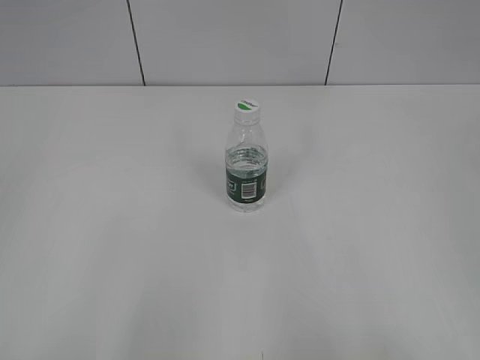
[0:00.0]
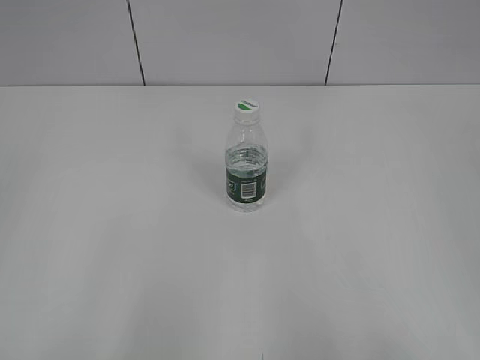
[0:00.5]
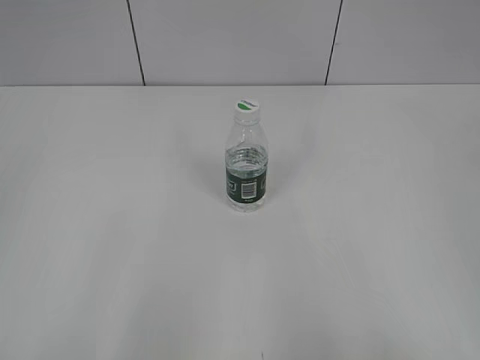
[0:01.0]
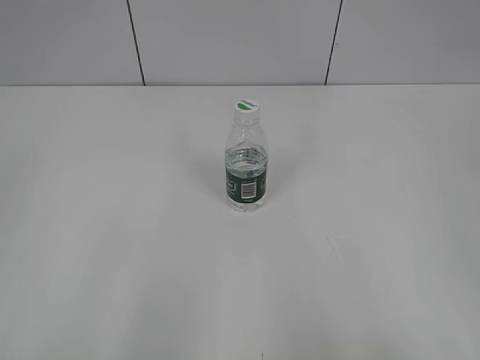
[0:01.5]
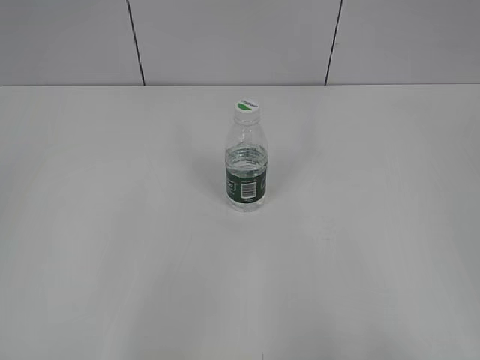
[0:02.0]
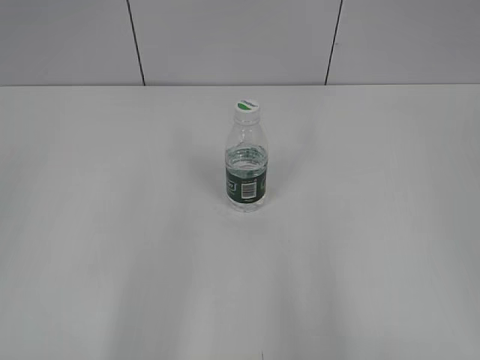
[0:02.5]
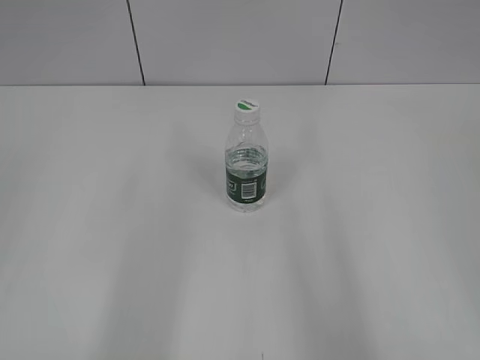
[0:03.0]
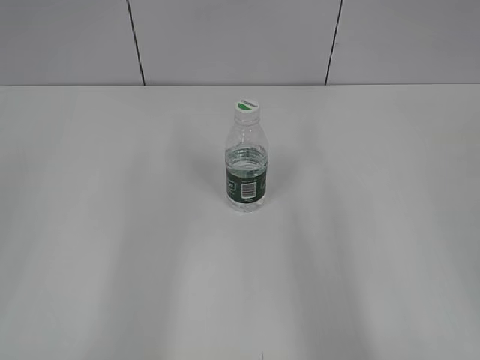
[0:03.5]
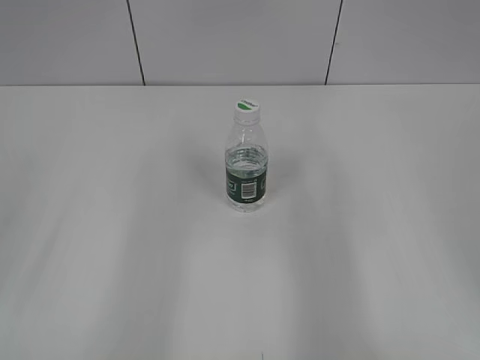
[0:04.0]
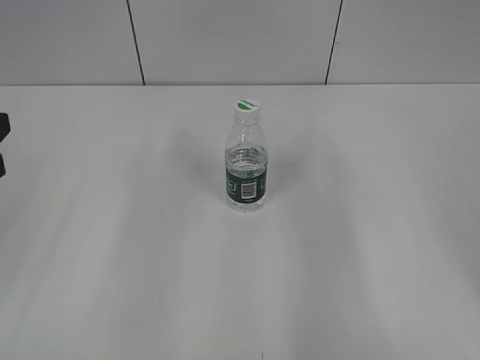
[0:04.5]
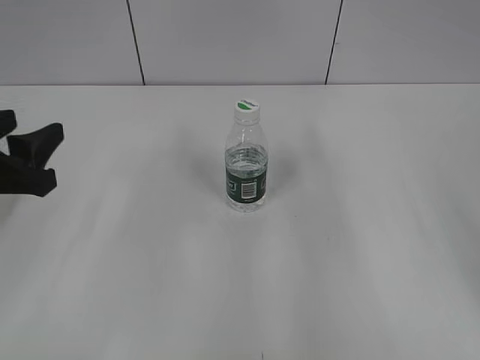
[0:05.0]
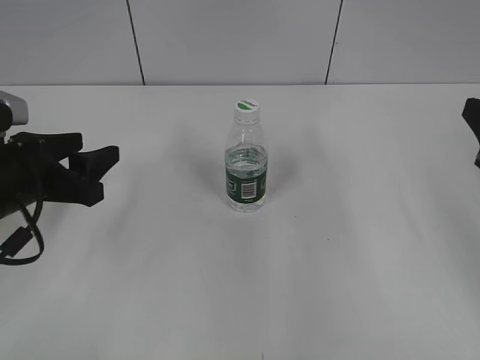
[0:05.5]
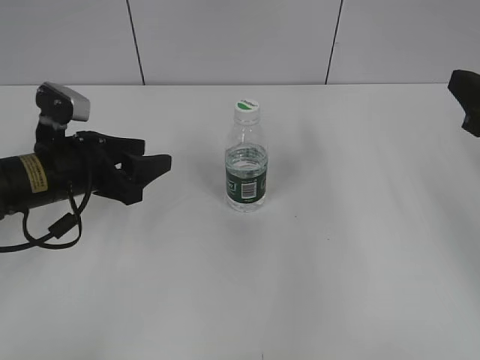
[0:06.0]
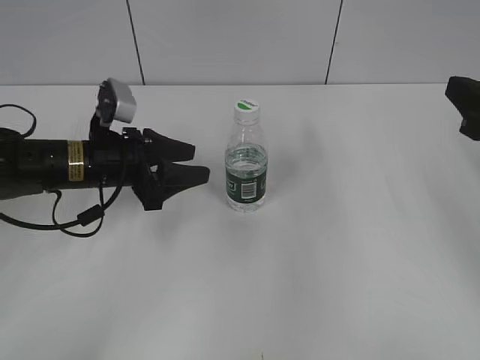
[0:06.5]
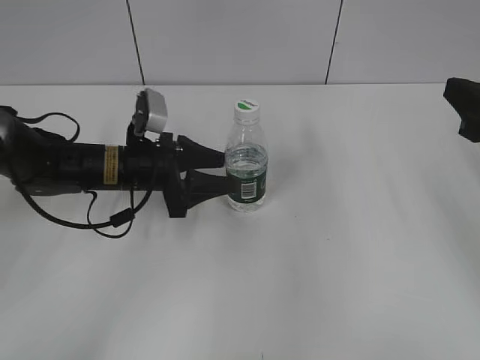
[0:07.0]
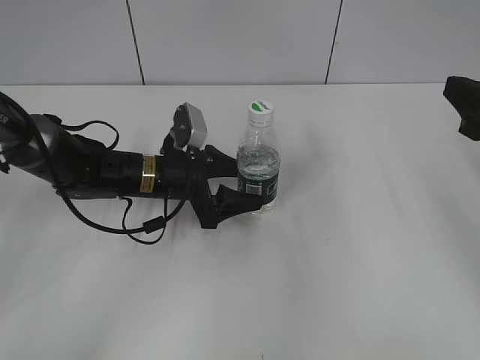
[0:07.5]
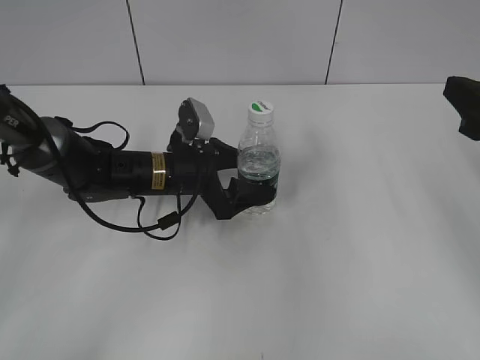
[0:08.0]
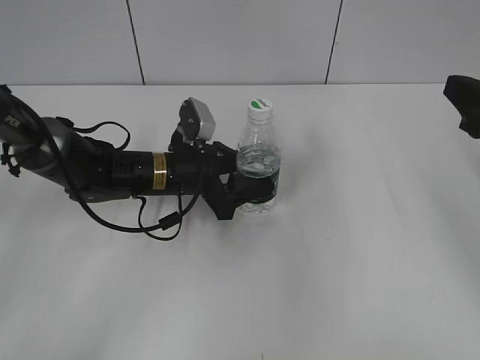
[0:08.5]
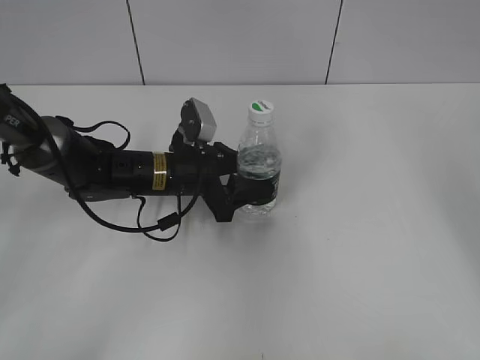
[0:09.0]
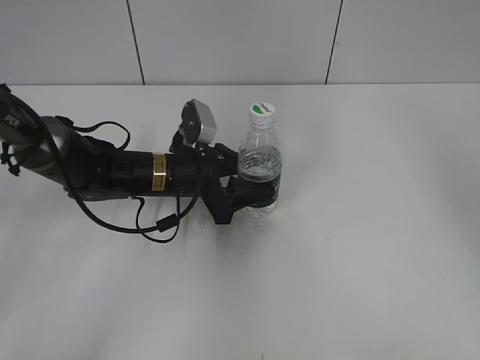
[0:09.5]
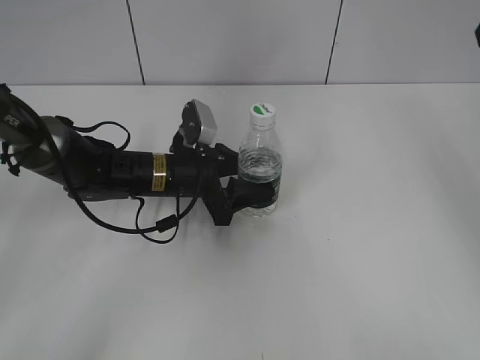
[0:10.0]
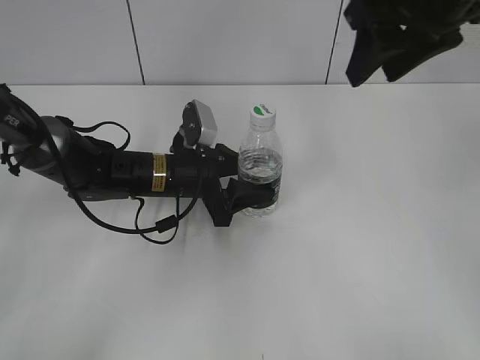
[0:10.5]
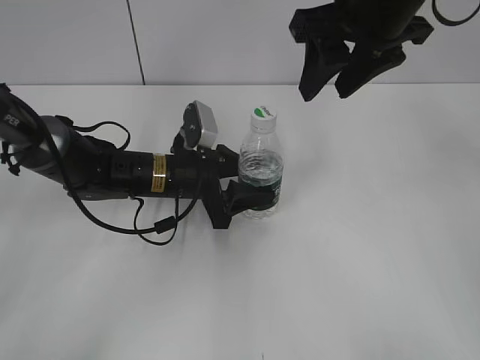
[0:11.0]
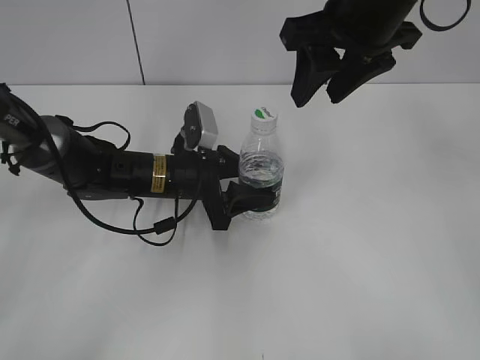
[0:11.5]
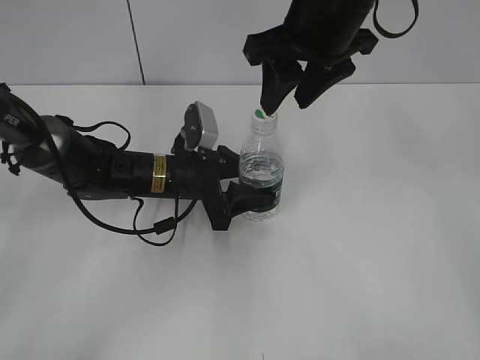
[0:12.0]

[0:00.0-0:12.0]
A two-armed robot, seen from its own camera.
Step, 0.0 to 9.5 s: Grasp the bottle and move it to the center of the table with the left gripper.
4.0 to 6.0 s: The right gripper goes some 10 cm forward. The left gripper heads forward, downward and to the right, covering roughly 20 cm.
6.0 to 8.0 s: The left gripper moves to the right, forward and downward, roughly 15 cm, and opens.
8.0 to 10.0 s: The left gripper closes up. The right gripper heads upward and forward, covering approximately 15 cm.
10.0 to 12.0 s: The right gripper shifts about 20 cm to the left.

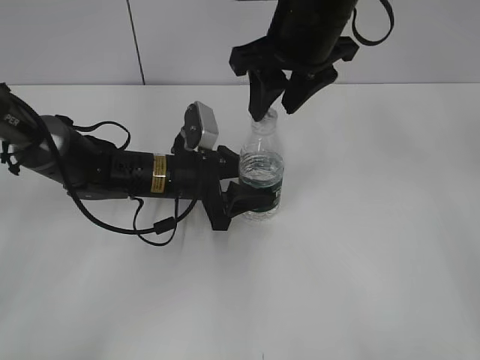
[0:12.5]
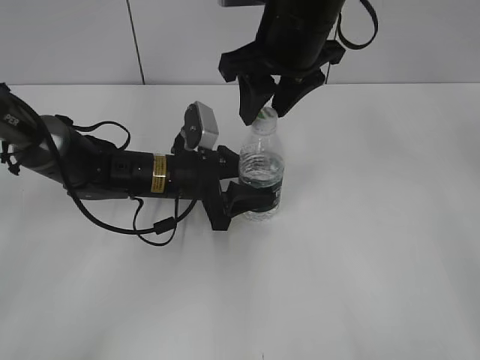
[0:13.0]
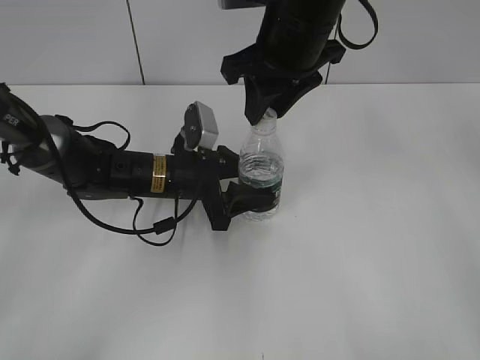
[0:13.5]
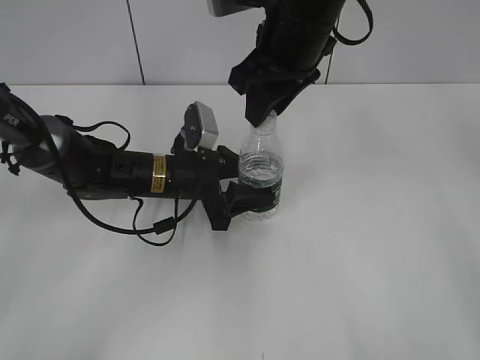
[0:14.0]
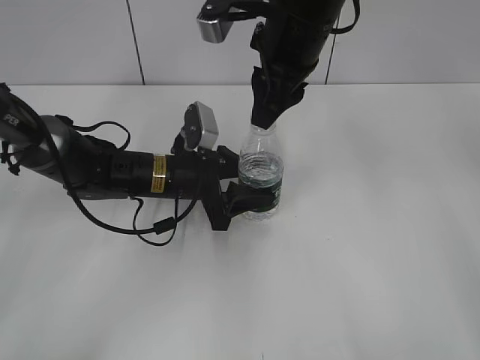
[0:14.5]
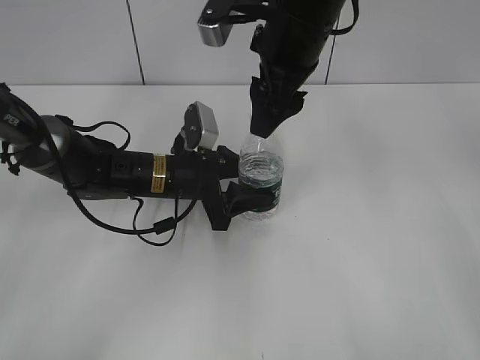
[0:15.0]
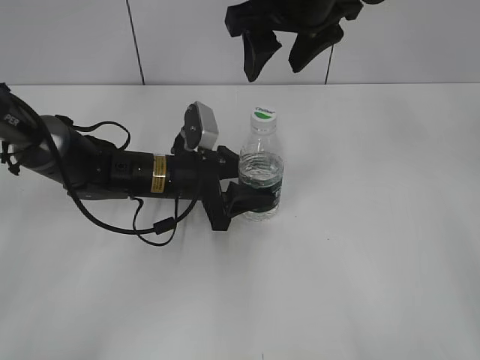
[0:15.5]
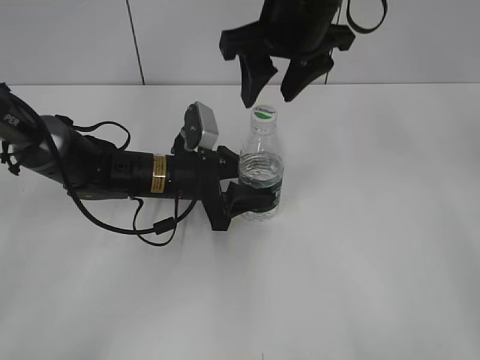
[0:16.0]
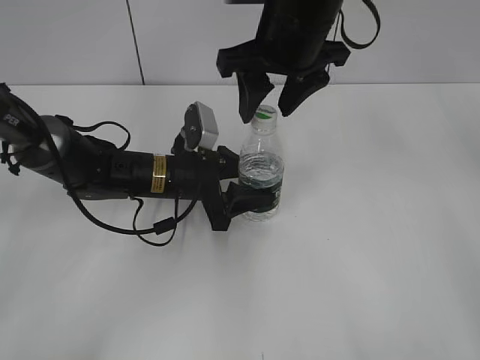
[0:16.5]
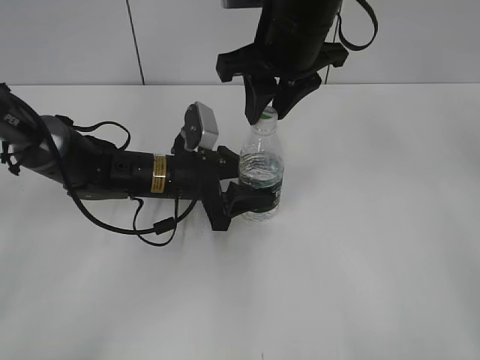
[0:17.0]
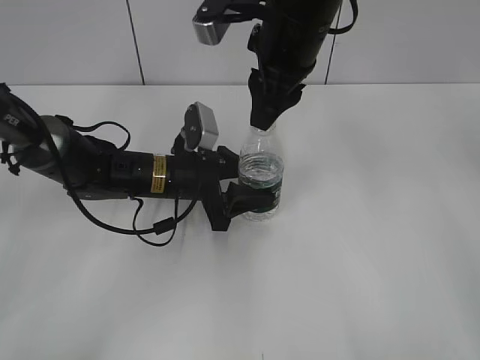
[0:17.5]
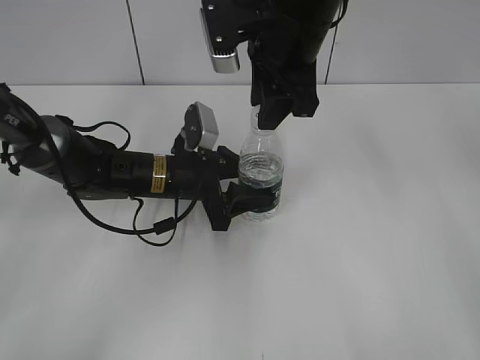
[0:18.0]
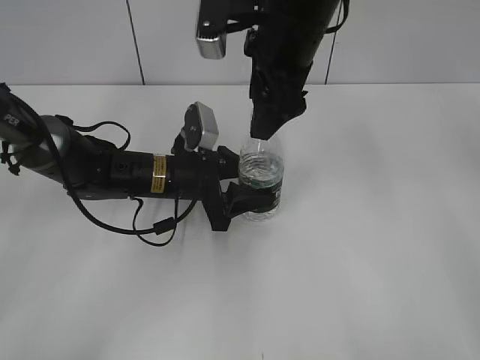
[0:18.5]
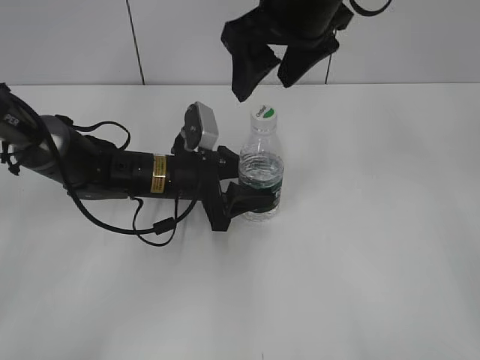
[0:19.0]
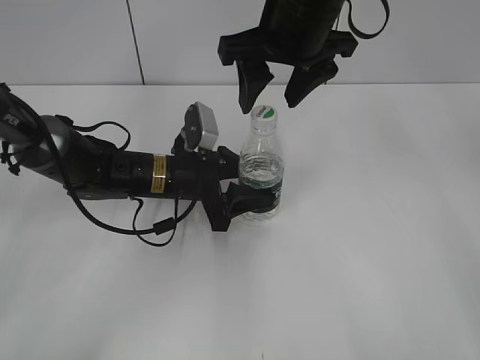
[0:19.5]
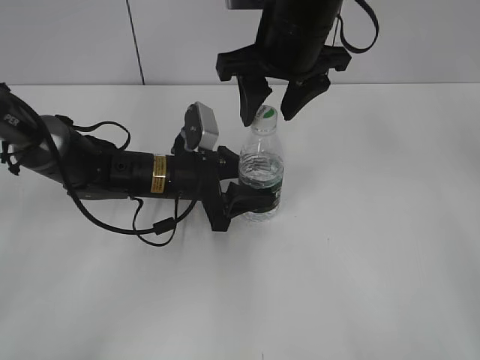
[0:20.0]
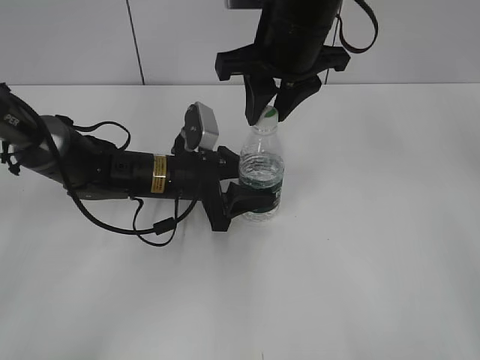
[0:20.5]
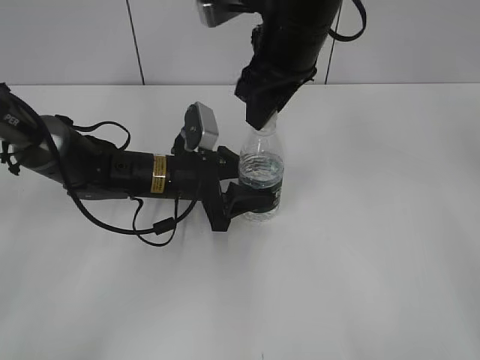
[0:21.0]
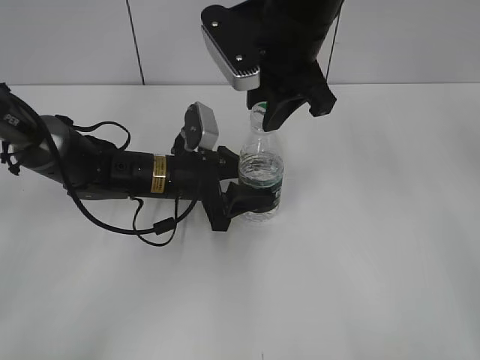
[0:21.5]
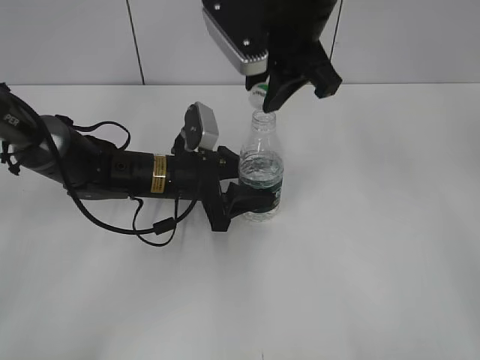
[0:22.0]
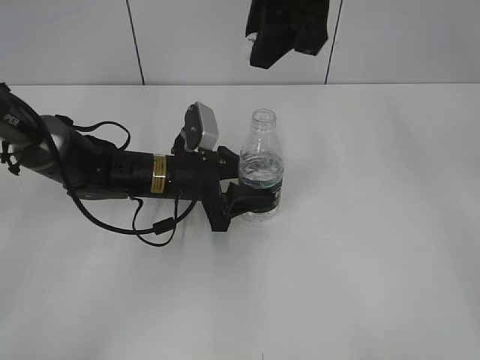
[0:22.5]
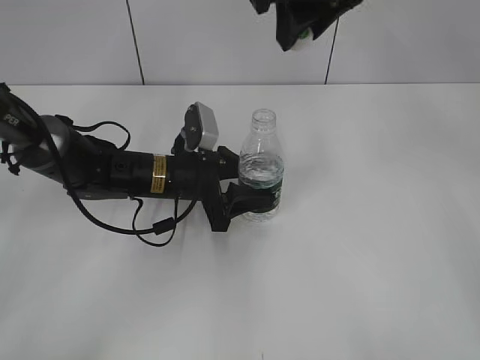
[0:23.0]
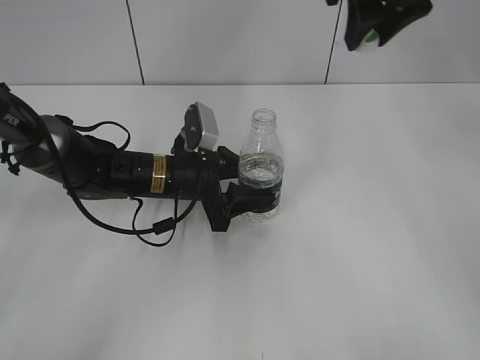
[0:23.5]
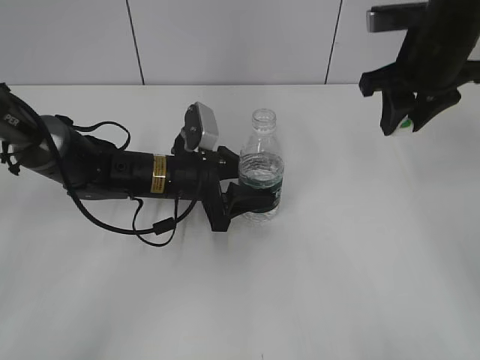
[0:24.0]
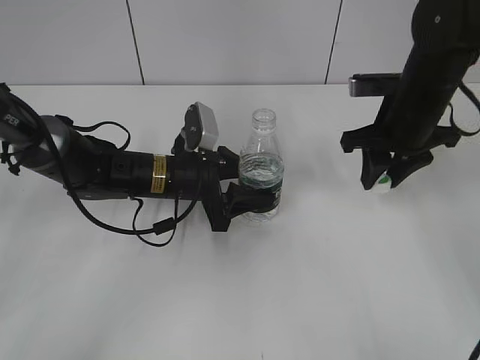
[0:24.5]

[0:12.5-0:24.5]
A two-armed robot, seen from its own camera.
Step, 12.5 to 22.0 s: Unscrew the bottle cap with the right gripper while holding the bottle with the left gripper.
12.5 to 14.5 s: The right gripper closes its fingers.
14.5 to 16.5 s: The right gripper opens its fingers.
16.5 to 18.5 s: The right gripper closes and opens again.
18.5 to 20.5 s: The right gripper closes.
20.5 to 22.5 s: The right gripper shifts some 10 cm upward.
22.5 to 24.5 s: The right gripper is displaced downward and to the right by approximately 25 cm.

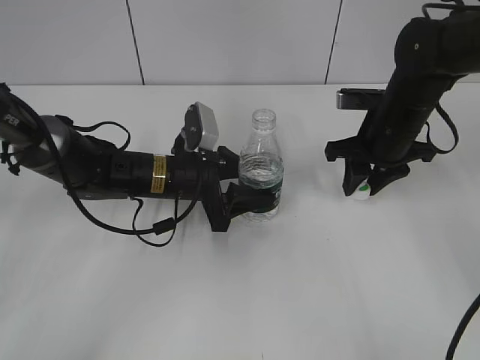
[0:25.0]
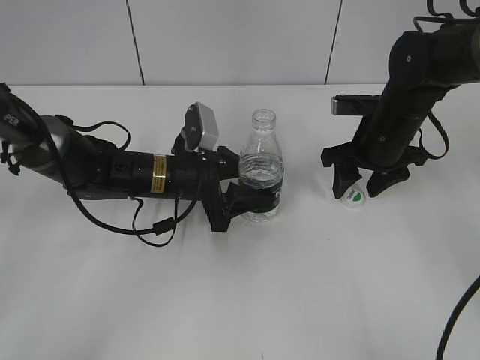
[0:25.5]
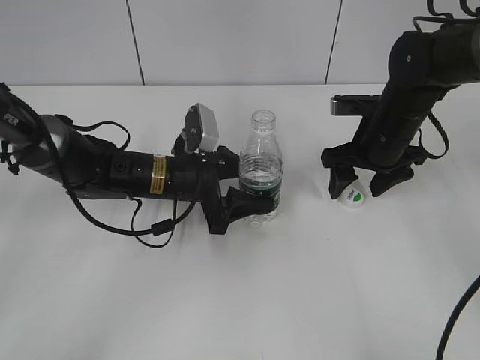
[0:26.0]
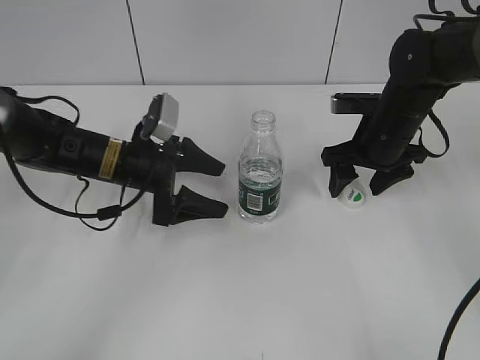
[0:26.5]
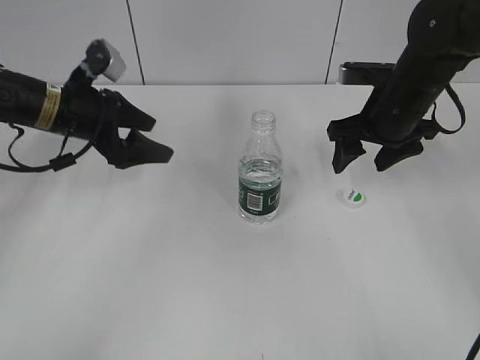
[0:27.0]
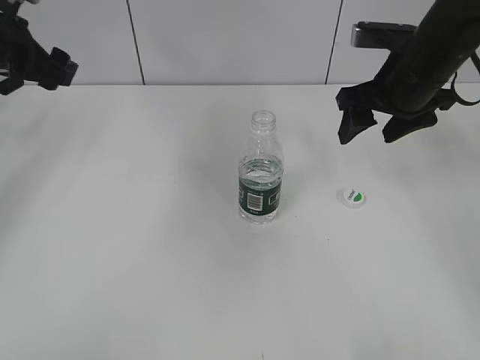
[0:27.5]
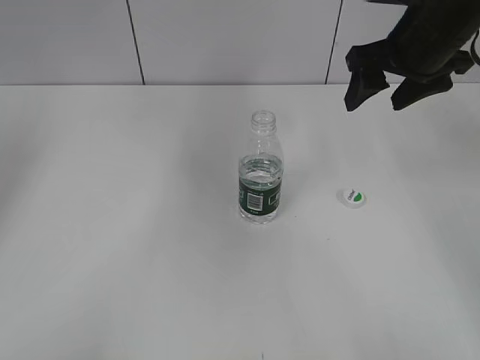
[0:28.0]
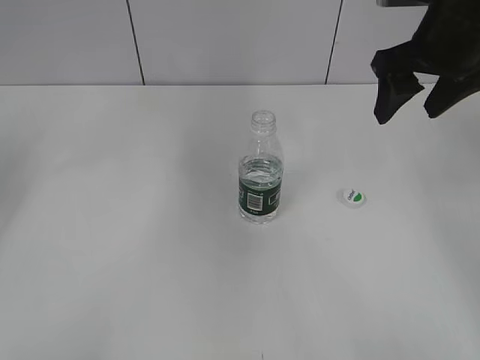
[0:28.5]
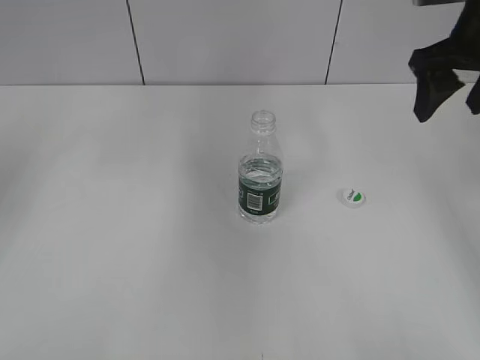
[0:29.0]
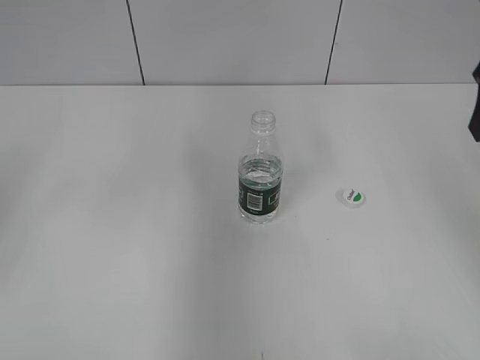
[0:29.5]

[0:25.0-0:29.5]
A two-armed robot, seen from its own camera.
25.0 to 27.0 s: The left gripper moves to the left and upward, approximately 15 cm, and opens up, while the right gripper opens its fingers.
27.0 to 29.5 s: The right gripper is displaced upward, backward and to the right by some 20 cm; the left gripper is displaced backward, to the left and upward by about 25 cm.
